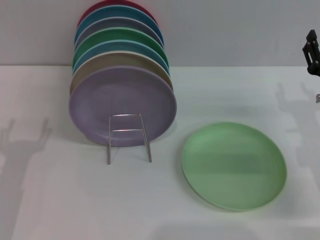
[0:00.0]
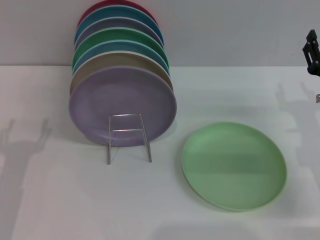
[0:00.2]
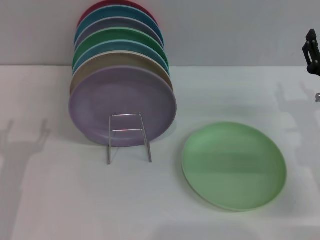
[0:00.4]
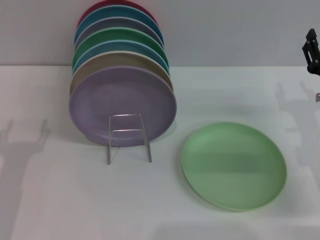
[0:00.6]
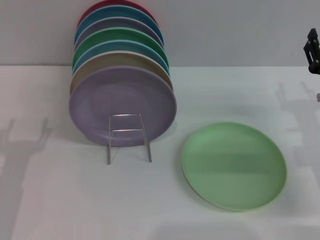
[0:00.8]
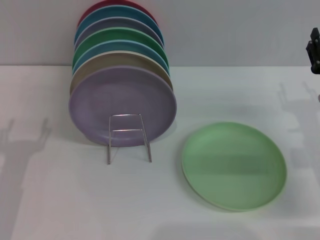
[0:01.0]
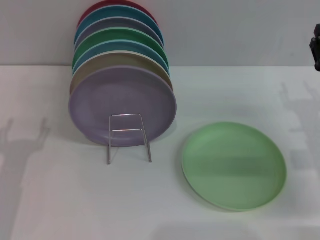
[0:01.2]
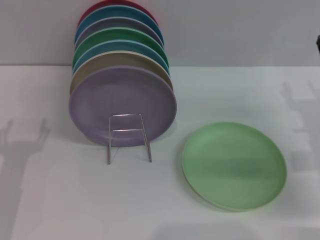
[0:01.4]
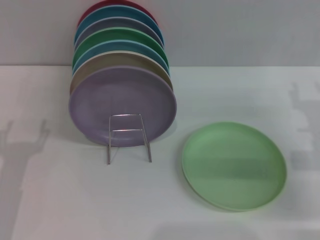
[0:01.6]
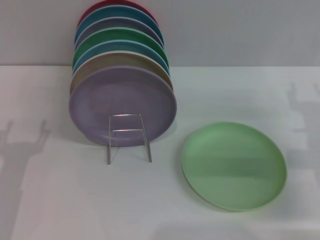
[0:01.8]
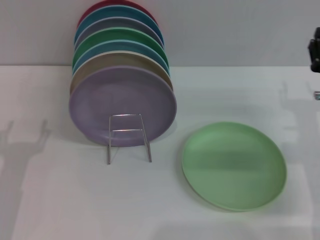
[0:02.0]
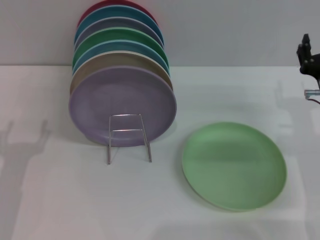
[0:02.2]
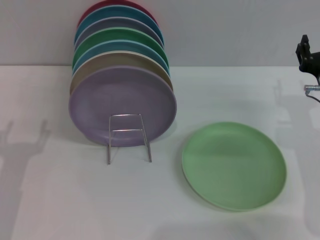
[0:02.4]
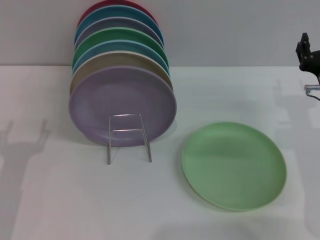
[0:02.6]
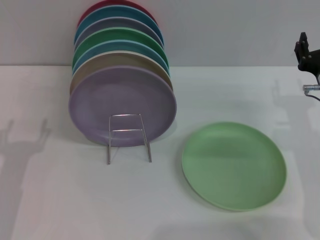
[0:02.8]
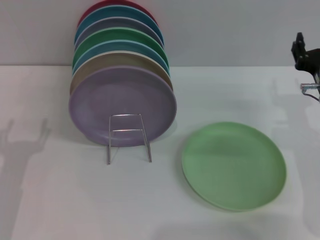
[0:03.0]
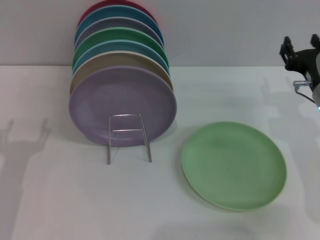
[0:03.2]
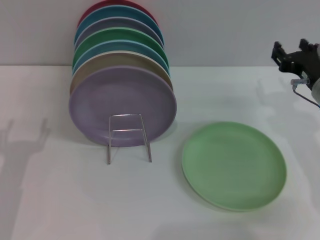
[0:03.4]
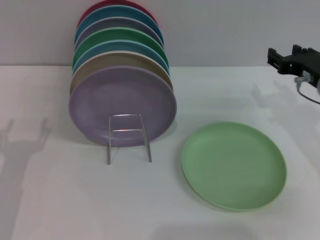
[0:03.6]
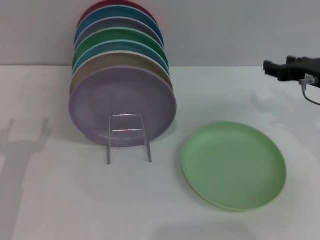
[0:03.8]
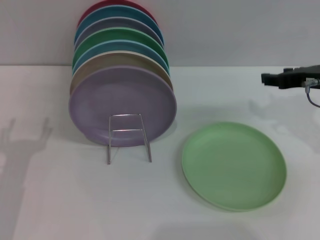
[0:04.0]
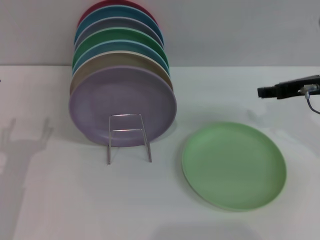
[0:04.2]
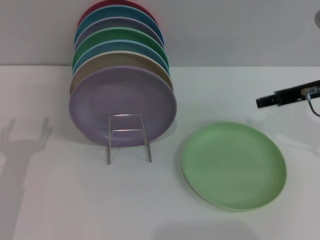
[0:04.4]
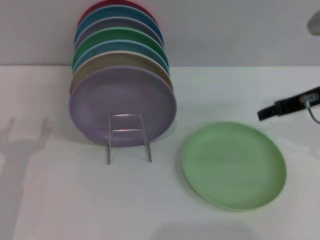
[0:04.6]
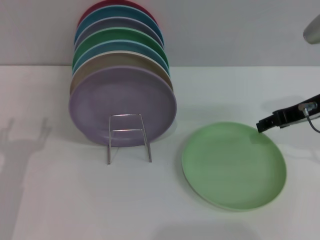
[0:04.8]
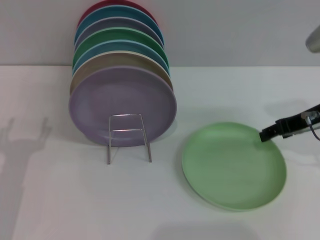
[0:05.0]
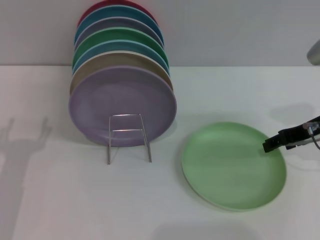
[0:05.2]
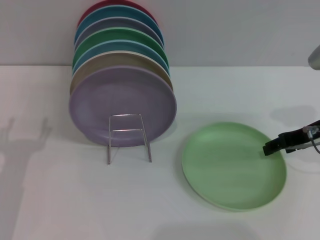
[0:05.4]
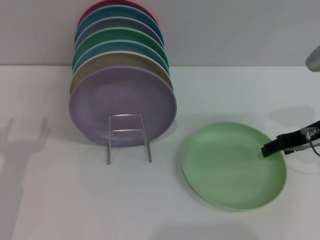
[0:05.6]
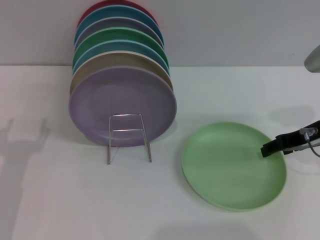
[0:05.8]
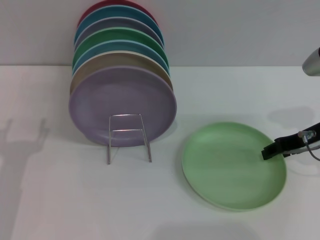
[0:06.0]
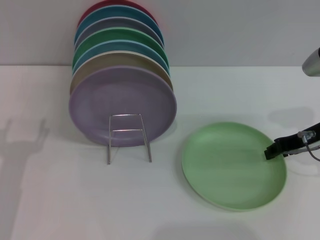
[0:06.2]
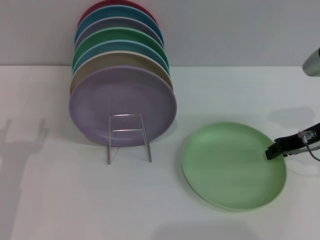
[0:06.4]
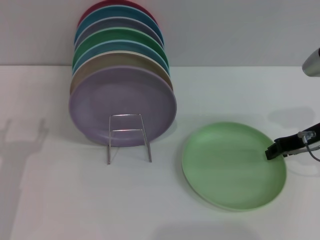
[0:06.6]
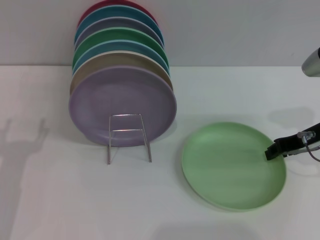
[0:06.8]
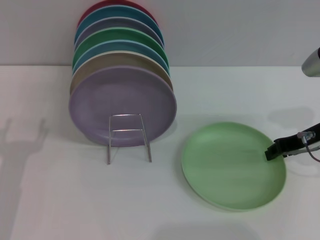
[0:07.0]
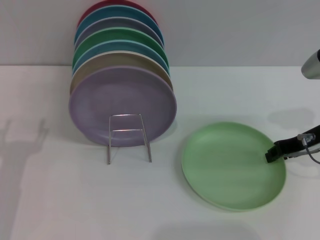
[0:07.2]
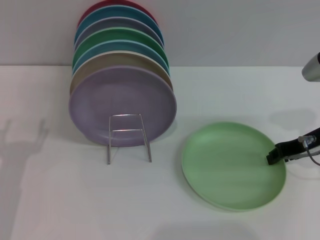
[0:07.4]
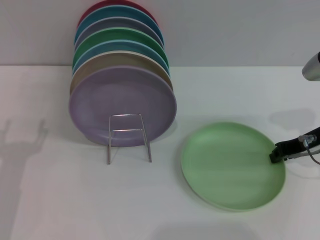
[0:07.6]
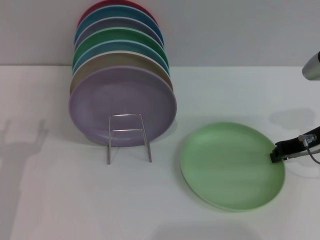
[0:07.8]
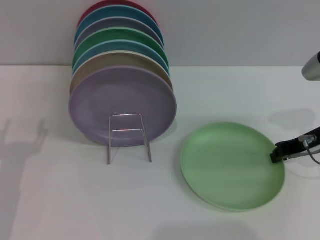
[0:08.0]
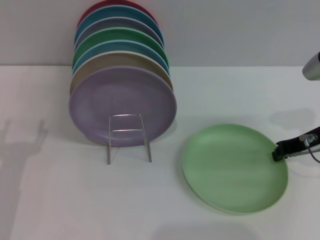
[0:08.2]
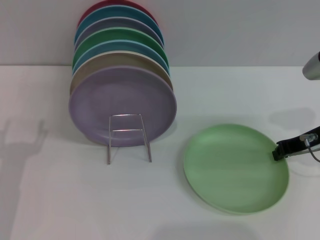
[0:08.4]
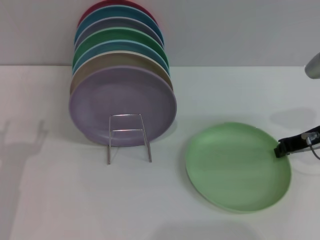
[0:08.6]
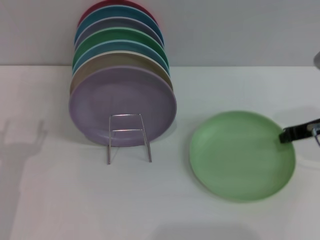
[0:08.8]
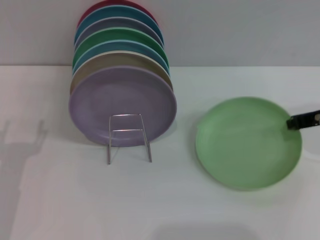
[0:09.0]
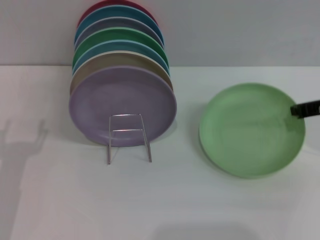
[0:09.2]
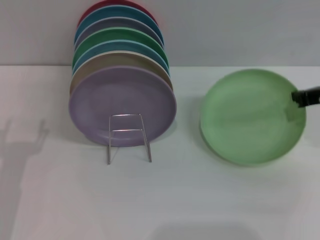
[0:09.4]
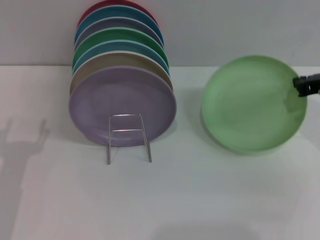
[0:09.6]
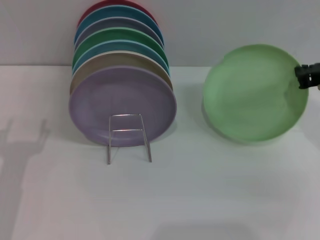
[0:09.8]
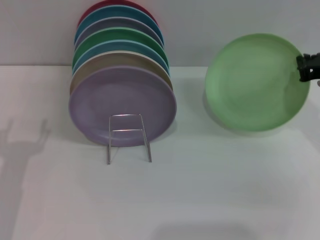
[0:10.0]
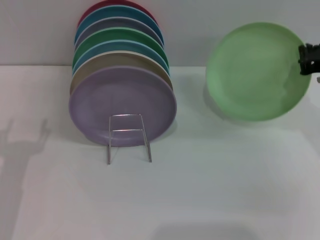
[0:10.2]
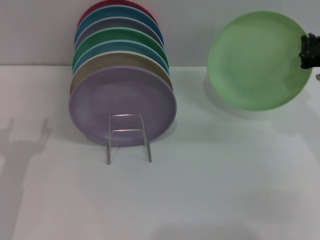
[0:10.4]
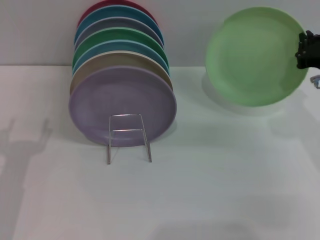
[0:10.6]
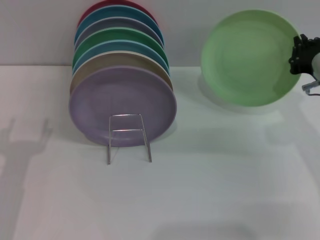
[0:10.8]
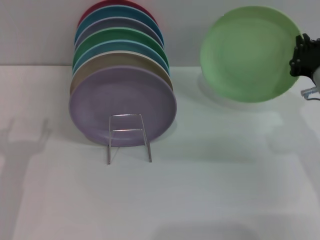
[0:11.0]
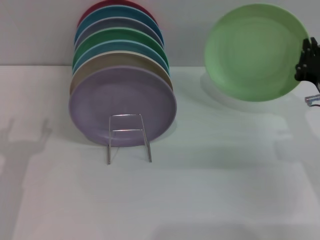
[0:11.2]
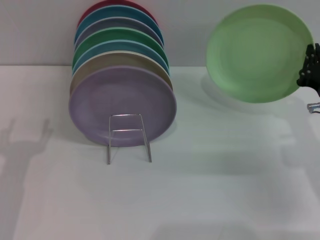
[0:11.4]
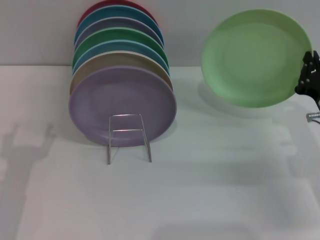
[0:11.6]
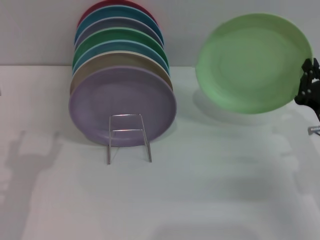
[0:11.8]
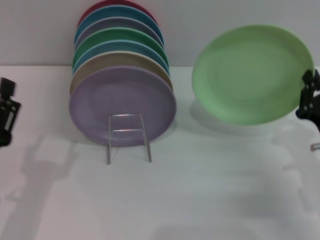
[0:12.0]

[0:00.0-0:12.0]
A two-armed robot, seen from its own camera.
Task of the whole recording: Grip the plate with one hand, pass it to the other, then set it on the shelf.
Step, 0:00.0 to 0:10.0: Pick up the plate with the right gripper.
0:03.0 to 0:04.4: The right gripper moves upward, about 10 cm.
0:04.4 to 0:06.0: The right gripper heads downward, covering roughly 5 cm.
0:06.0 to 0:07.6: The right gripper closes.
0:07.6 to 0:09.0: The grippers stay close to where they were, moving slightly.
0:10.4 to 0:12.0: The right gripper travels downward and backward by about 15 cm; the left gripper shifts by approximately 5 cm.

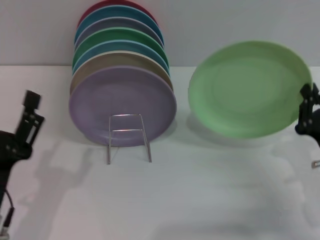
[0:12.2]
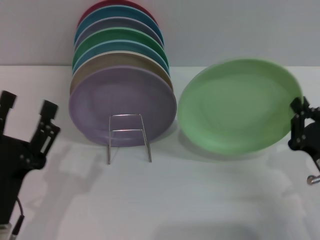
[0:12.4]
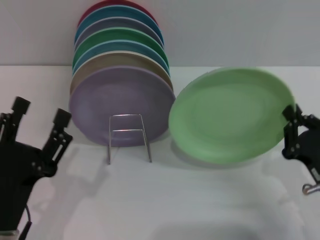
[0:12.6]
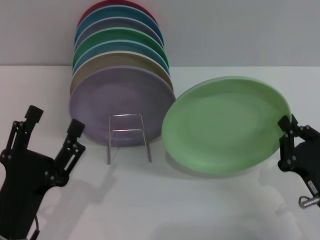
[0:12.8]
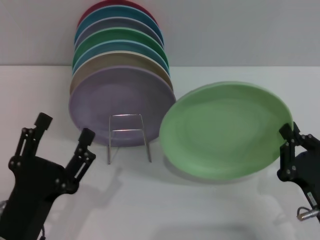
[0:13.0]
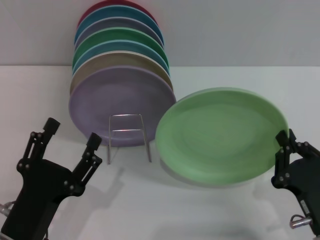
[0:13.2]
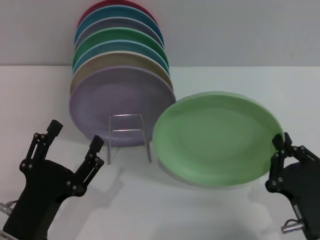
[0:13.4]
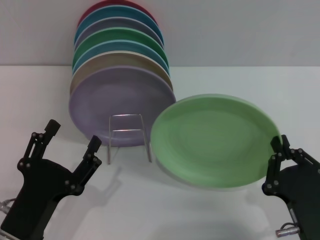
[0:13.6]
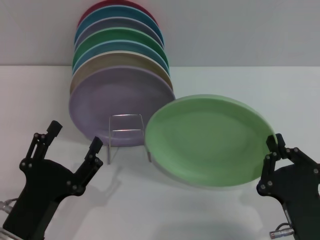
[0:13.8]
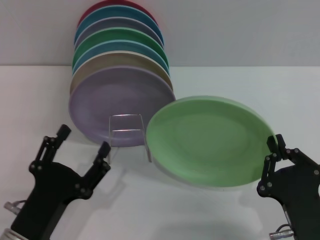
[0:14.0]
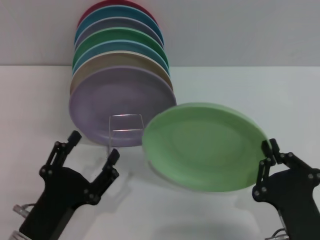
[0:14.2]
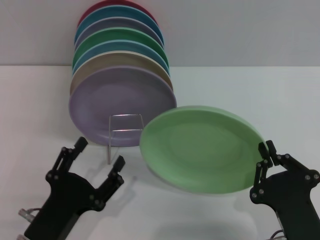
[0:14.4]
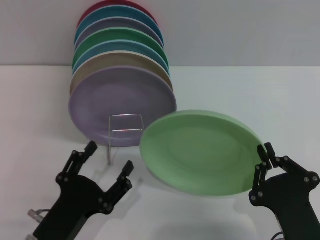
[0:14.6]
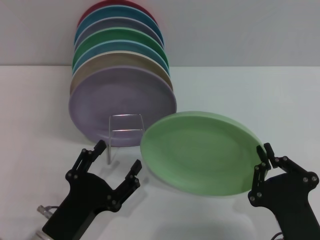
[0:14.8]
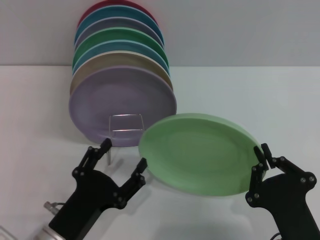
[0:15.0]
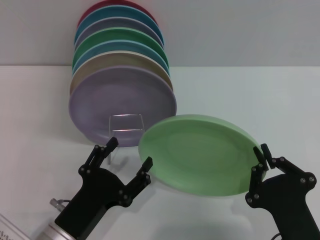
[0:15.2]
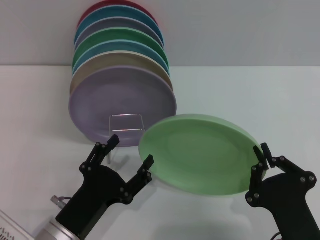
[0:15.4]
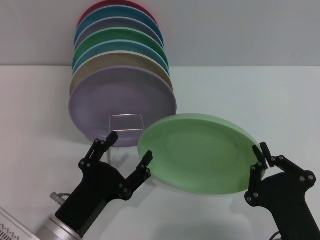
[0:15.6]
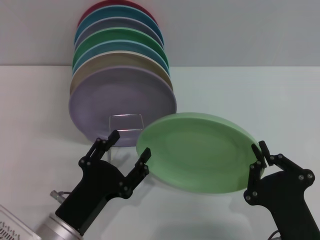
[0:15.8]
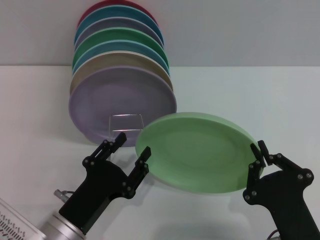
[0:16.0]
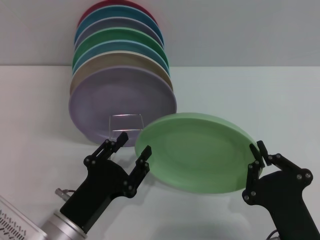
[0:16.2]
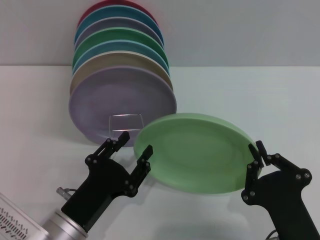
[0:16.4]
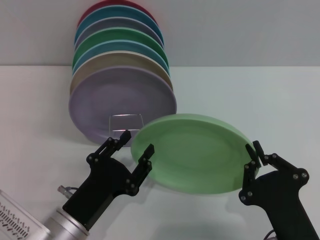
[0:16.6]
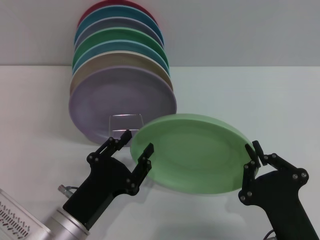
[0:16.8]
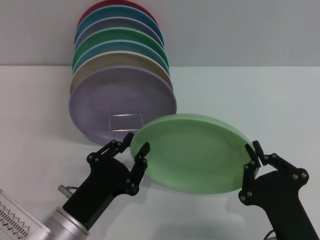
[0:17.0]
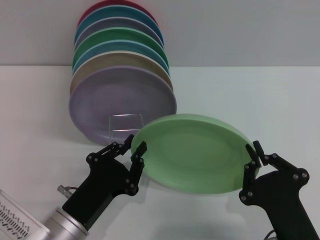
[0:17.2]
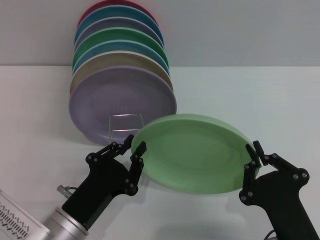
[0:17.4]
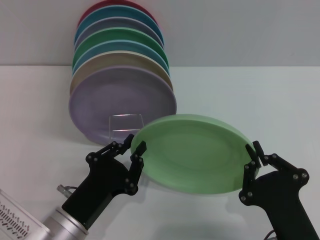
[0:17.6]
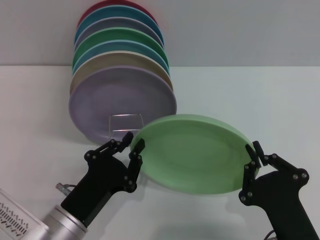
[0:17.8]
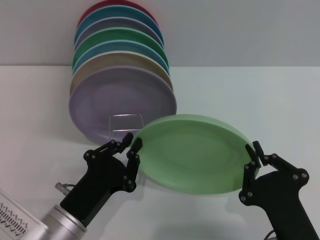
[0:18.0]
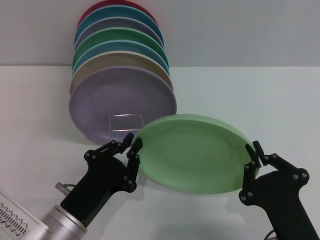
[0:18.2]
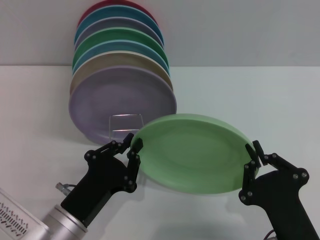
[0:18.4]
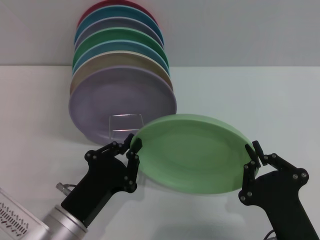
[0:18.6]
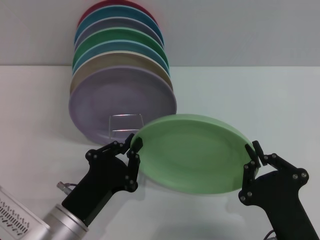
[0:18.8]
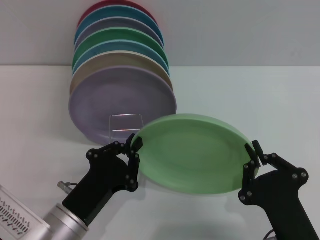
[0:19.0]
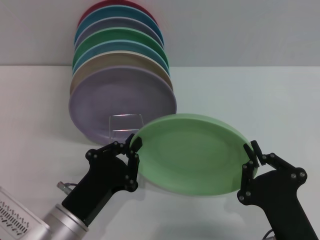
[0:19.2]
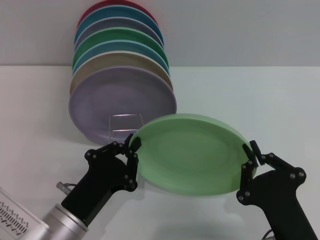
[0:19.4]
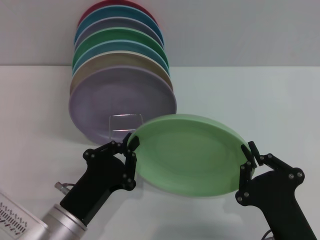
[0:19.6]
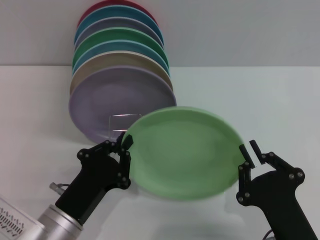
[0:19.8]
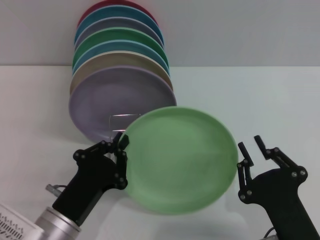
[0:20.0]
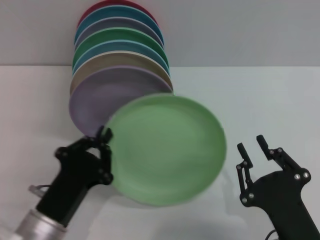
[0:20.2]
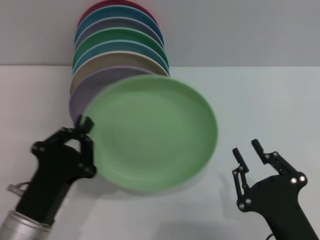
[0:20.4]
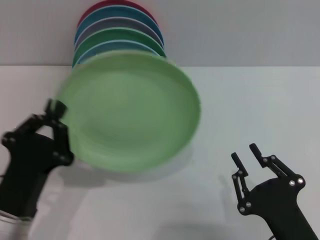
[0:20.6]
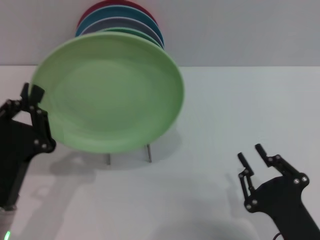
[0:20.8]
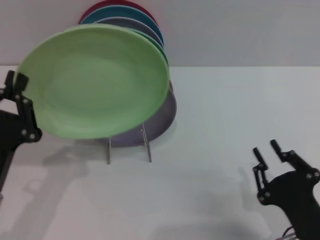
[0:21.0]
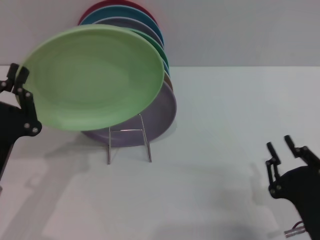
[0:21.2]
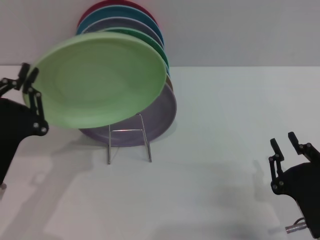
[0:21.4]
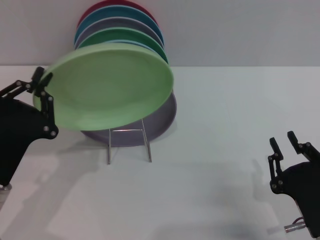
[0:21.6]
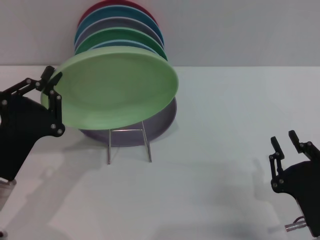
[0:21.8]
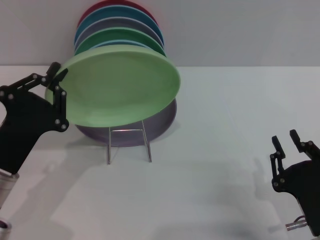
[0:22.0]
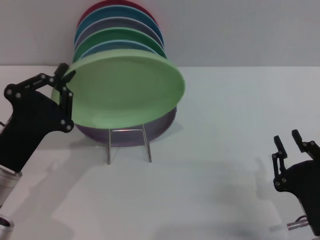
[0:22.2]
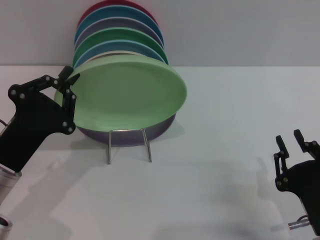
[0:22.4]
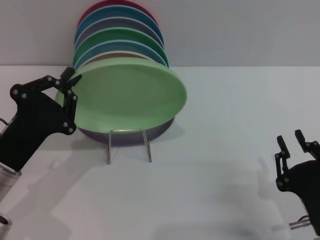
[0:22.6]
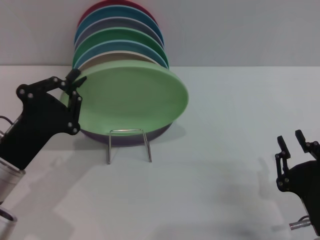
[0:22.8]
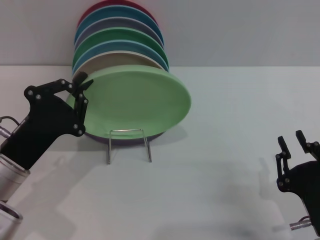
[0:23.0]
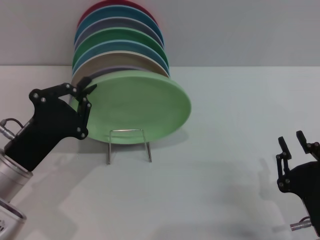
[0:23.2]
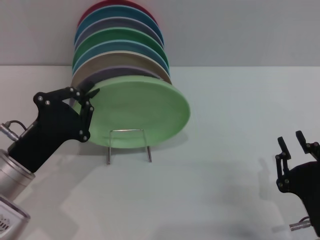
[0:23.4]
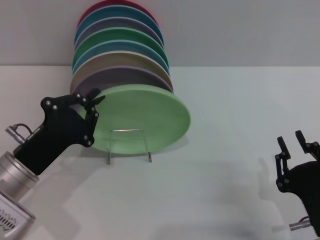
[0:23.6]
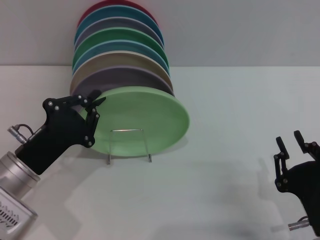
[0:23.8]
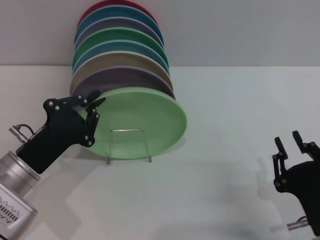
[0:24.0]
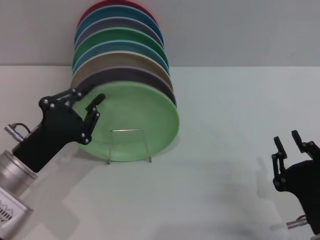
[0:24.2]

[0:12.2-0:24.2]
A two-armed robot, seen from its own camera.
Task of the whole recording: Grip the plate with one hand, pass it to the other, then set it on the shelf.
Step, 0:12.2 to 0:20.0: Pass the plate from the right gripper to the left gripper.
0:12.2 to 0:13.8: The right gripper travels backward and to the left by some 15 cm.
0:15.2 to 0:16.6: The grippers make only small movements.
0:16.6 to 0:18.2: The left gripper closes.
0:18.2 to 0:19.8: Both grippers stay about where they are.
0:19.8 to 0:21.2: The right gripper ends up approximately 5 cm from where it was, and opens, while the left gripper shifts some 10 cm to the left and upward.
0:22.6 to 0:24.2: The grippers make only small movements.
